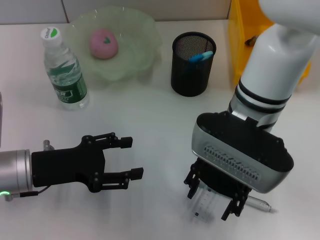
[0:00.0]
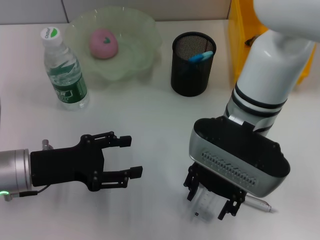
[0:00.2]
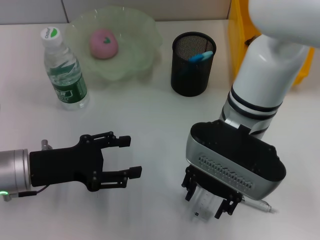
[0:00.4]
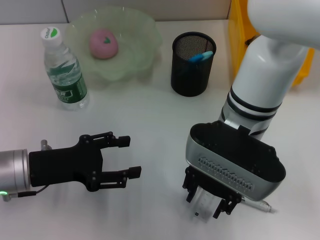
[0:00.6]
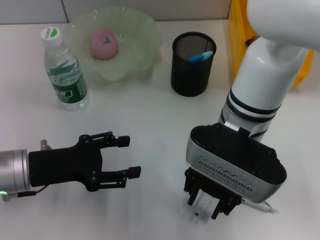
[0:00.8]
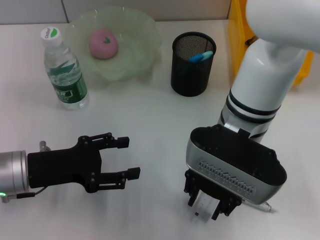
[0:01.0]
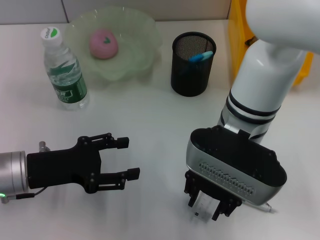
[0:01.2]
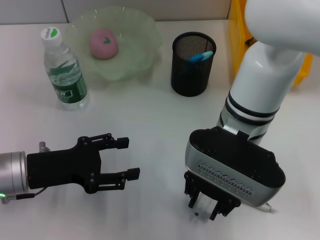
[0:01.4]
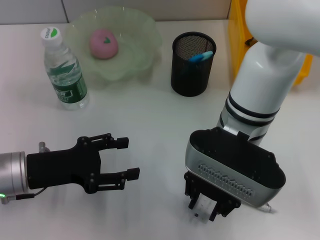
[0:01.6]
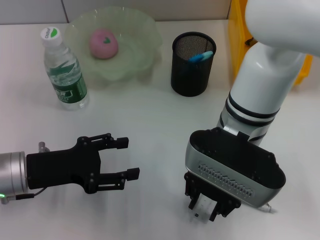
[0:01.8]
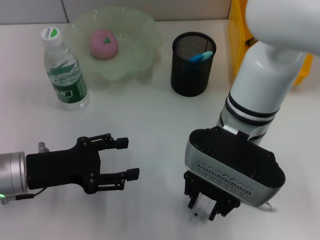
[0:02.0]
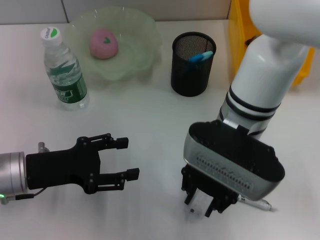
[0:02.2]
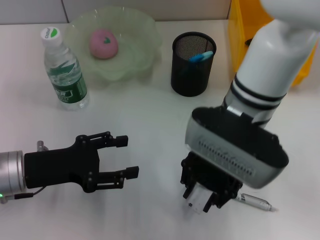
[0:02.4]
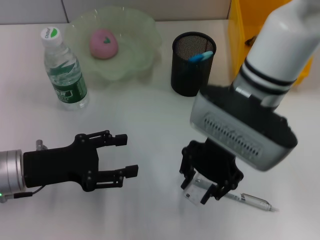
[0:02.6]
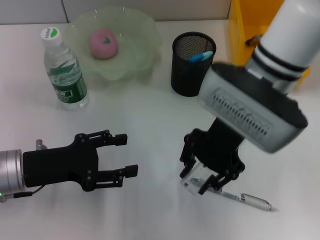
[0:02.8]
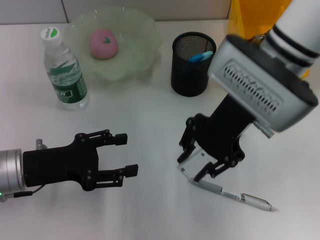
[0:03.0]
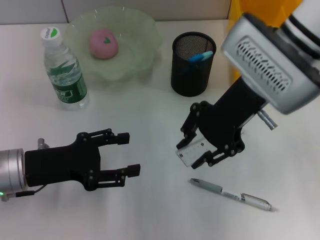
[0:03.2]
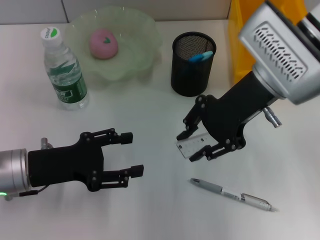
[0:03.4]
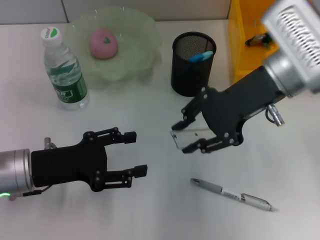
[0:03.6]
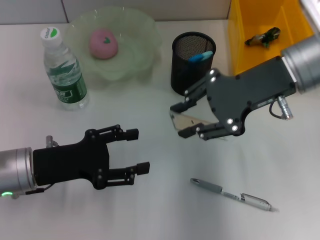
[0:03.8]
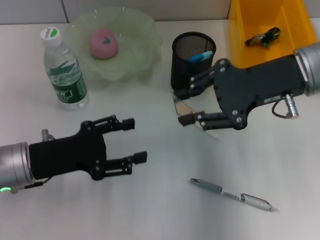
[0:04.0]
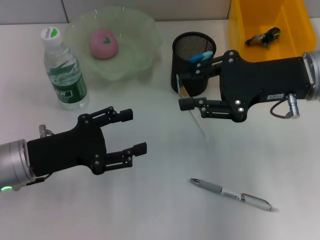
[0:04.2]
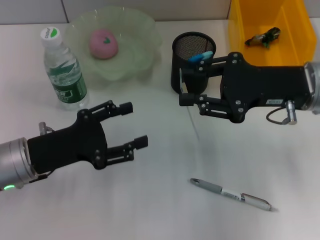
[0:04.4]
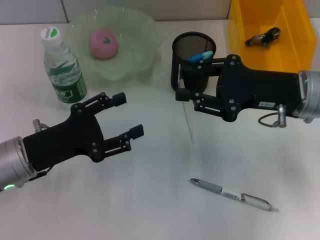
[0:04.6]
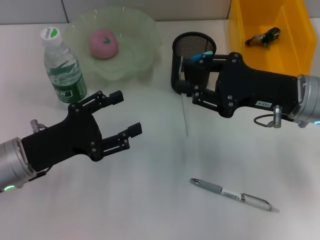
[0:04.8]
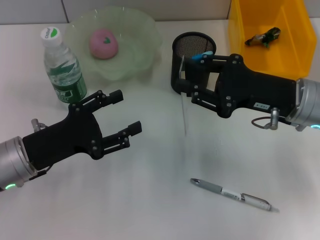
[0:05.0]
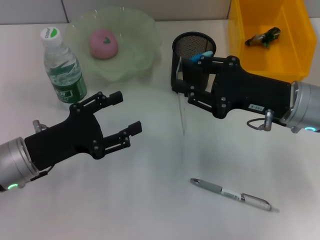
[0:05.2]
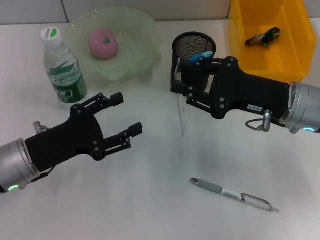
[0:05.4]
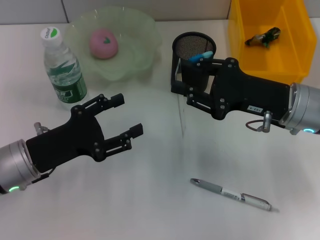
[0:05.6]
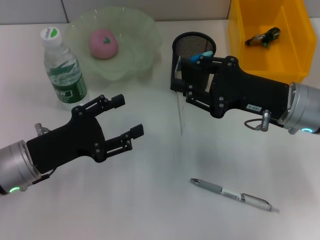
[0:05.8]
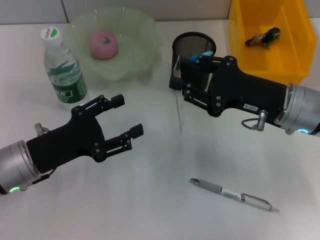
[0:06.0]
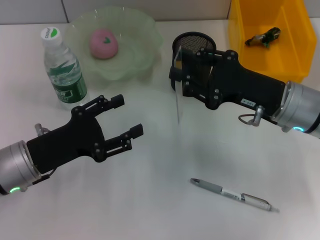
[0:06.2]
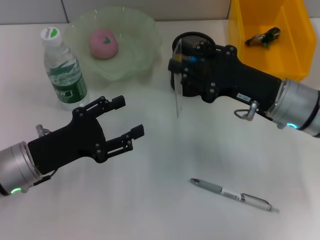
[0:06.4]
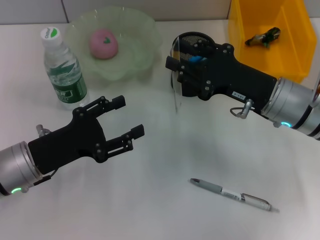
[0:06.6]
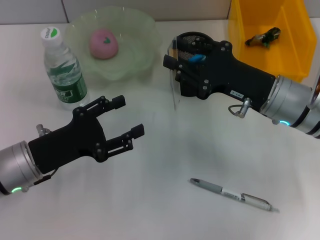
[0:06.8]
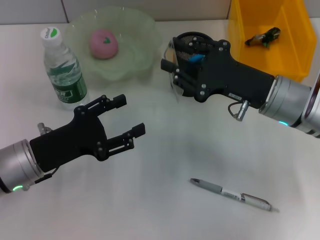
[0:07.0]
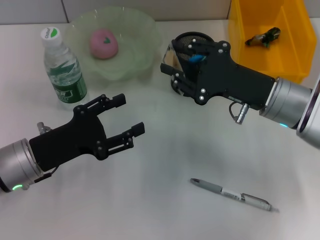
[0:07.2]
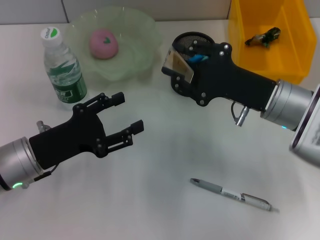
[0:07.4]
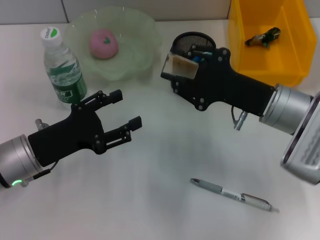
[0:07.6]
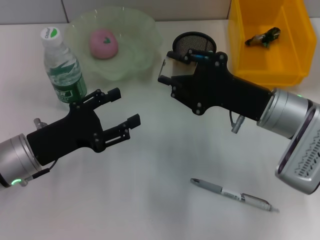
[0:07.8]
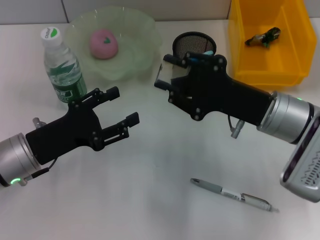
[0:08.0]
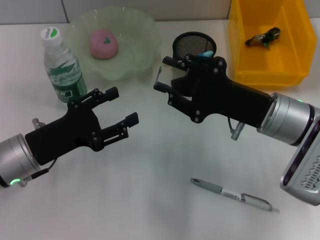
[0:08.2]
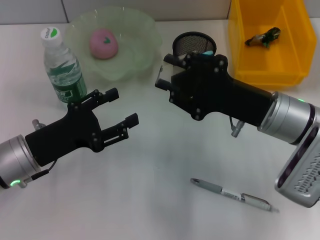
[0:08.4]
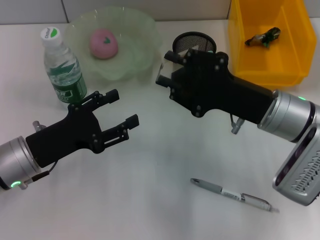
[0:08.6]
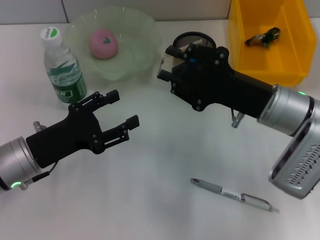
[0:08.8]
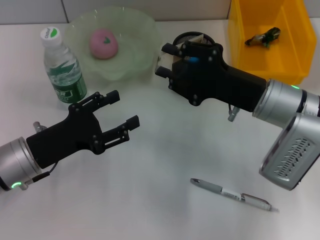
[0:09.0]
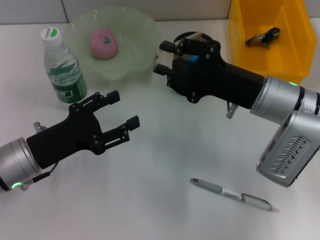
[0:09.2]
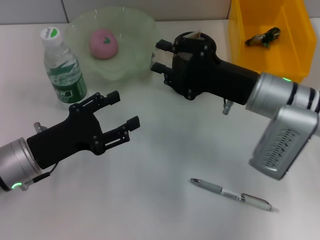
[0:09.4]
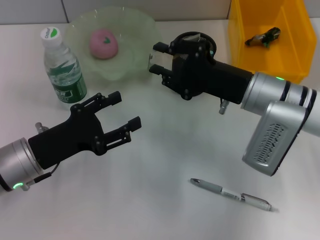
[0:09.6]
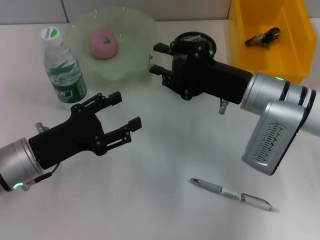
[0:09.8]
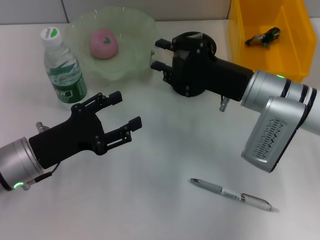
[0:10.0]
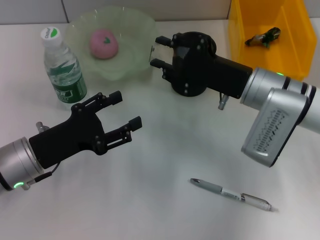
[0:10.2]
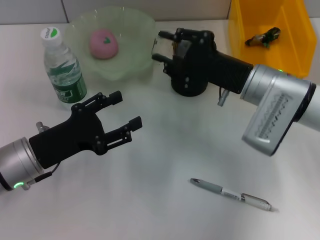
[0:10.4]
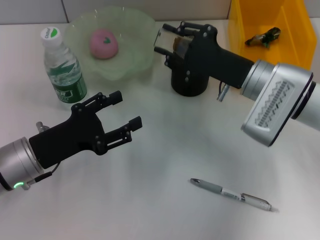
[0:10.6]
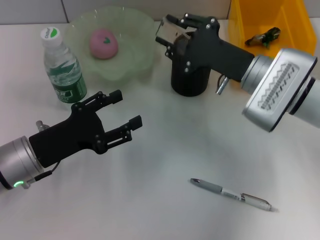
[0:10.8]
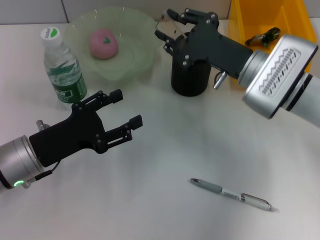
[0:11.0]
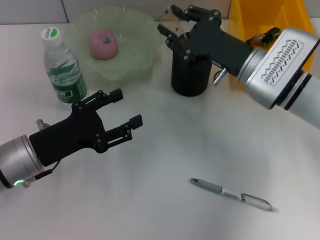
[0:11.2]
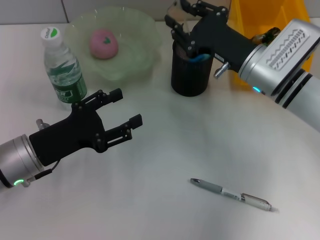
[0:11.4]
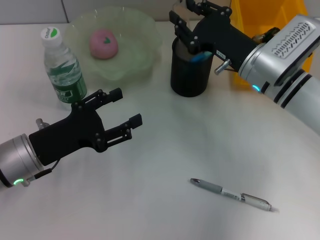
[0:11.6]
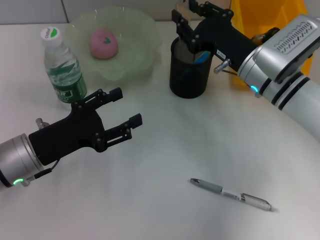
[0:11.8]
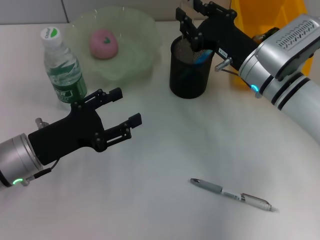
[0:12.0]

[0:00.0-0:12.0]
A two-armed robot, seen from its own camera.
0:00.0 to 0:01.6: The right gripper closes up.
0:01.6 to 0:03.0: The right gripper is displaced upward by roughly 5 cm.
0:03.0 to 0:04.4: The right gripper is displaced to the right and downward by approximately 10 cm.
0:04.4 to 0:06.0: The right gripper ends up approximately 5 cm from where it was.
0:09.0 to 0:10.4: The grippers stay close to where they were, moving slightly.

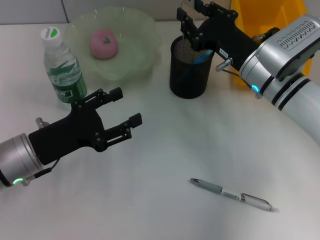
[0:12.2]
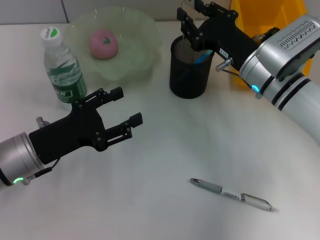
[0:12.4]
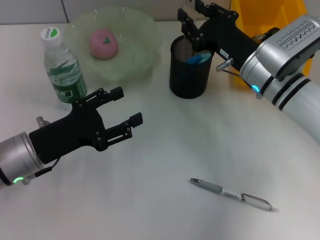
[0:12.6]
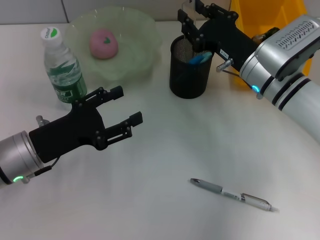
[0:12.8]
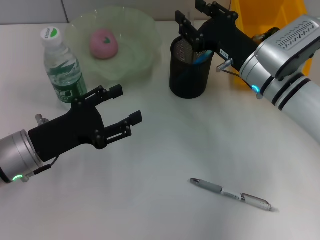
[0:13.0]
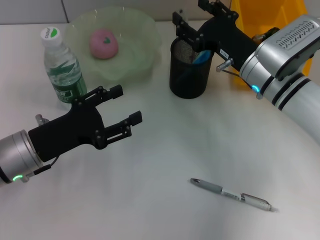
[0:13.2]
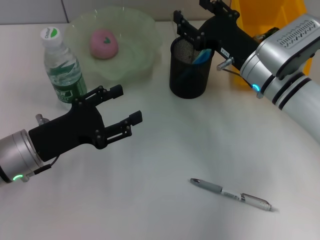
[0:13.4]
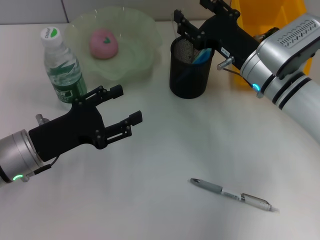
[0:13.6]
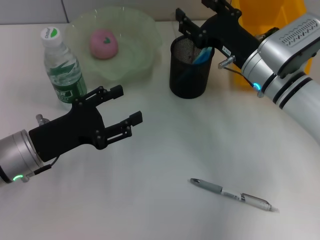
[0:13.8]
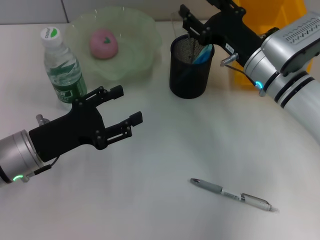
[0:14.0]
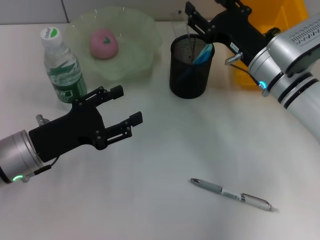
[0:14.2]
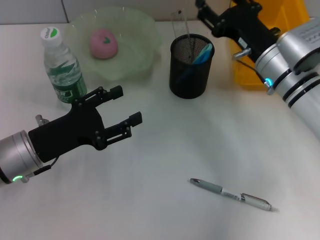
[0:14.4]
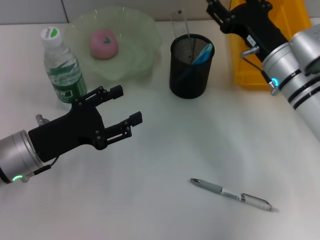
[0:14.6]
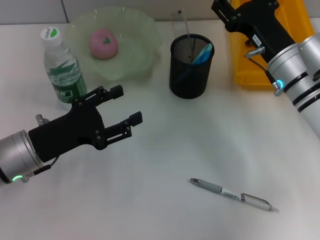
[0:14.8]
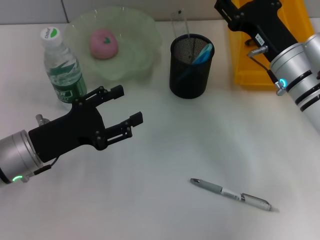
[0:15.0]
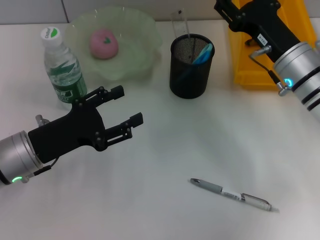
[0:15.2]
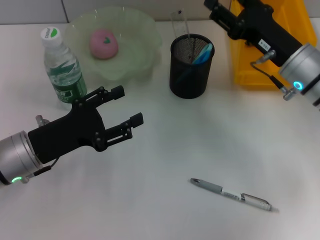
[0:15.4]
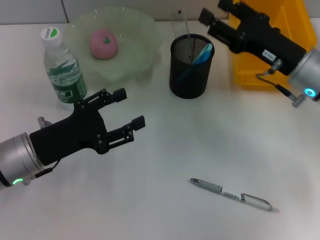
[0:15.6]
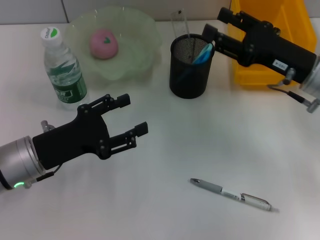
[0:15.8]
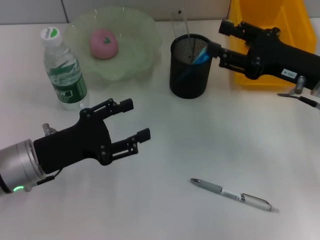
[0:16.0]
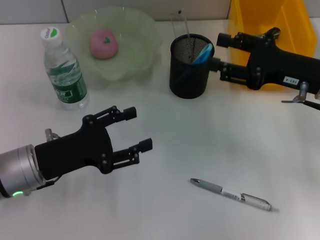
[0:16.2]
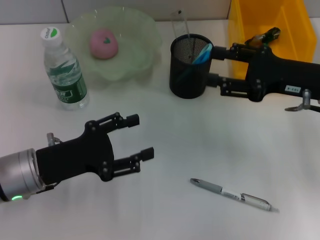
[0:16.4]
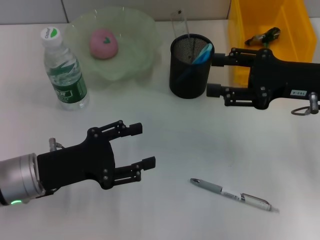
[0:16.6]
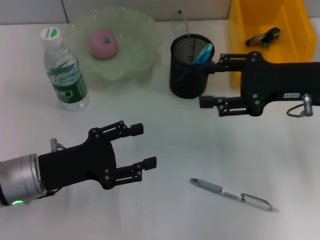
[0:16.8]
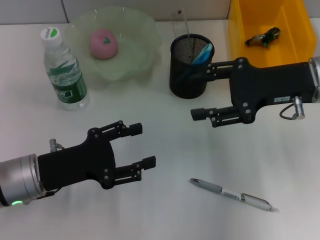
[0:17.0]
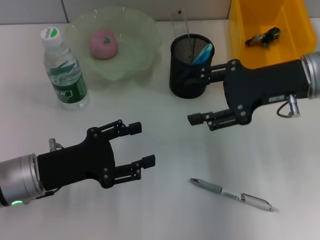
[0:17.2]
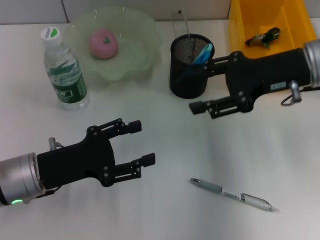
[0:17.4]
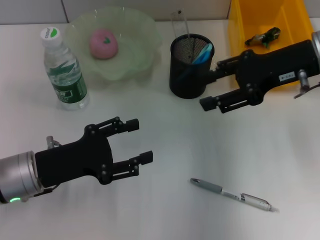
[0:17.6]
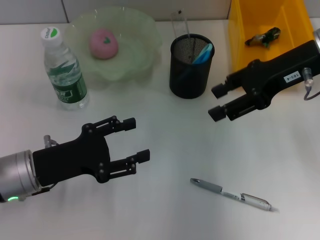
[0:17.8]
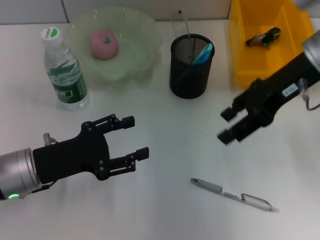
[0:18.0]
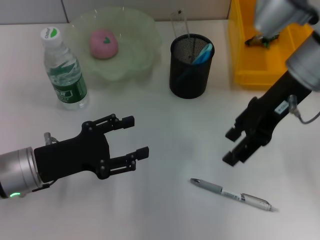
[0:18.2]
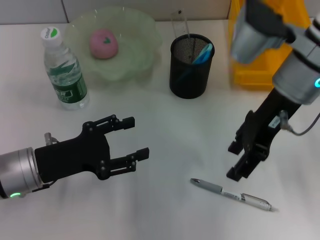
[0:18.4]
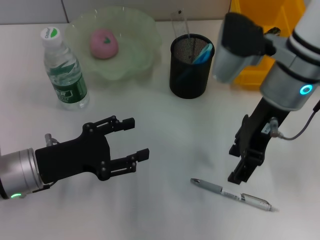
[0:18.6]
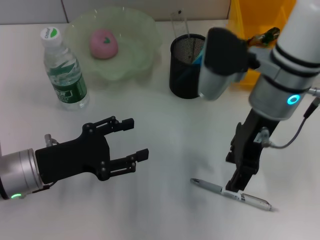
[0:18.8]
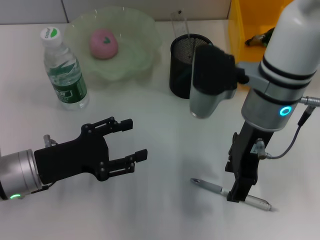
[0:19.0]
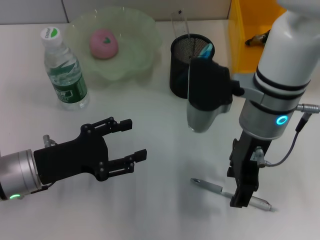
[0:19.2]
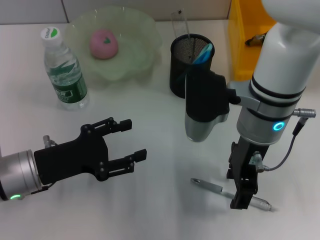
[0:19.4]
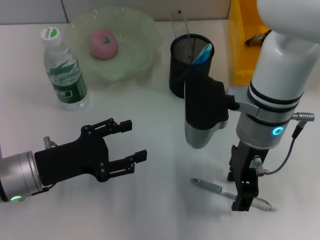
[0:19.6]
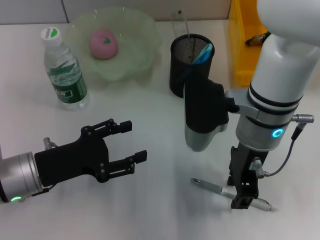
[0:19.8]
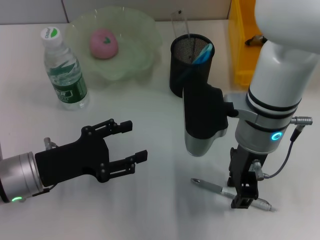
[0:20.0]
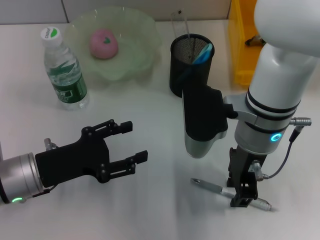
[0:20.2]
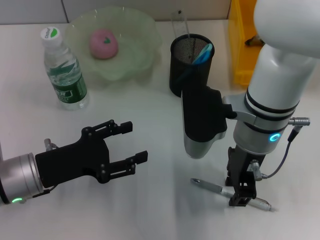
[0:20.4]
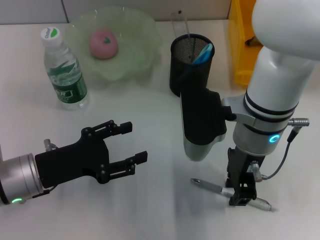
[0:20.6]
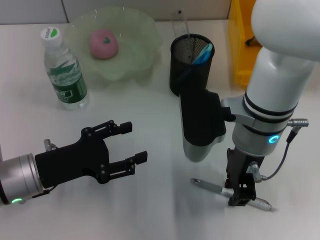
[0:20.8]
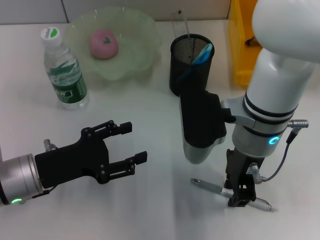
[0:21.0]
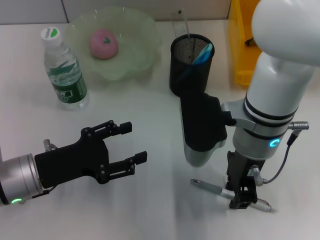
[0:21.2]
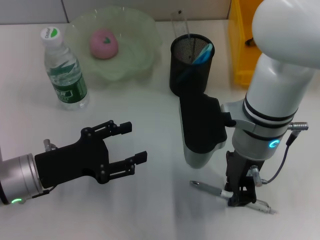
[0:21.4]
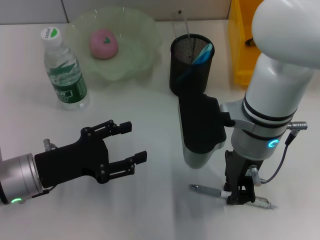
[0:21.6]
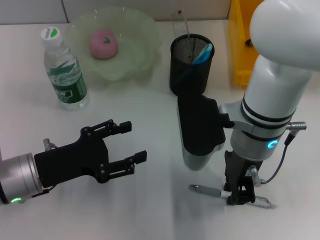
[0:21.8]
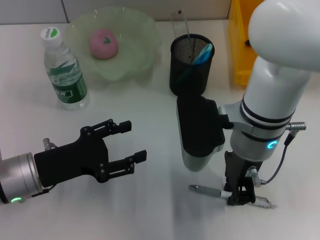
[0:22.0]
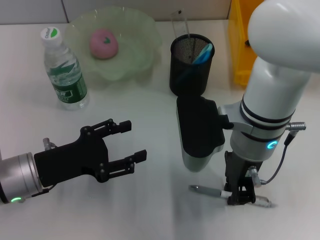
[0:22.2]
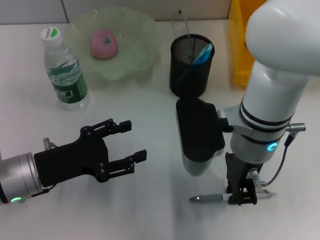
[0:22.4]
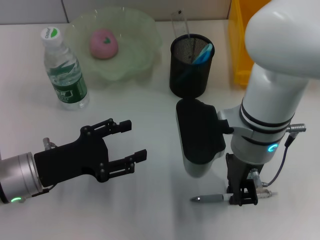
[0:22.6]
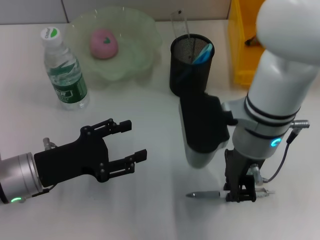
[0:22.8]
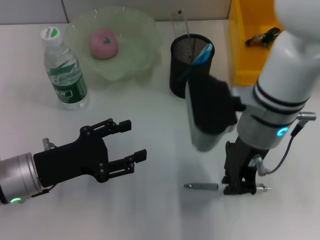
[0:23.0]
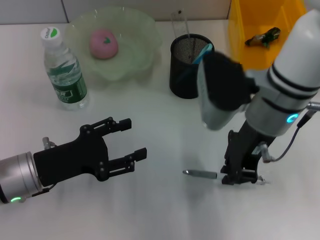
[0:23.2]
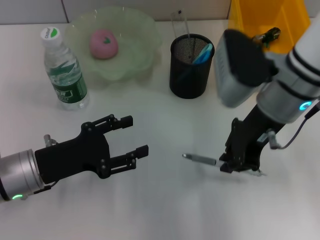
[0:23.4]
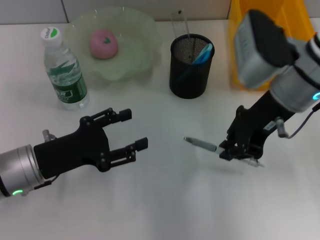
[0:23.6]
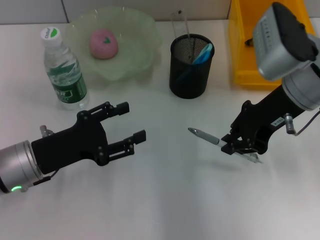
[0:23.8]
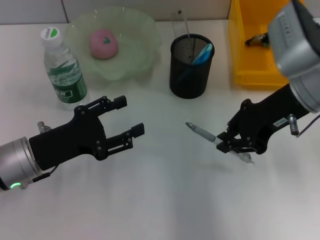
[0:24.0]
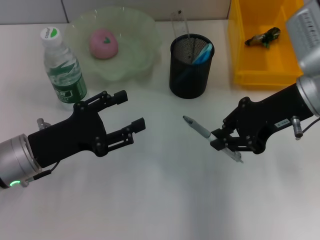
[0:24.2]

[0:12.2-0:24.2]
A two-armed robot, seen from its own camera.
Step, 0:13.6 to 0:22.4: Grab the gray spring-action pen with the right hand.
0:12.2 to 0:13.8: The right gripper opens up.
0:13.8 to 0:15.2: The grippers make only small movements.
0:15.2 to 0:16.6: The right gripper travels to the right by about 5 cm.
0:16.6 to 0:18.2: The right gripper shifts approximately 10 cm to the left and upward.
0:18.2 to 0:19.8: The right gripper goes approximately 10 cm to the left and downward.
0:19.8 to 0:21.2: The right gripper closes.
0:21.2 to 0:22.6: The two grippers keep their place.
0:22.6 to 0:24.2: The right gripper heads to the right, covering some 10 cm.
